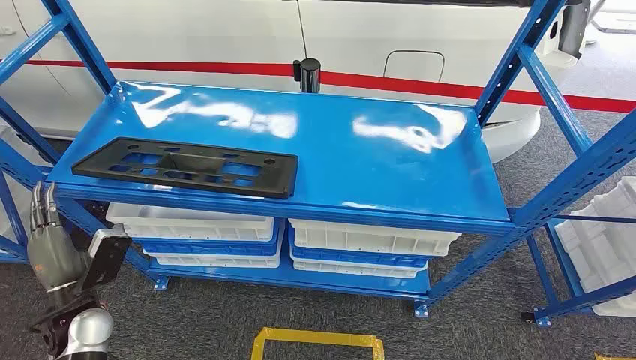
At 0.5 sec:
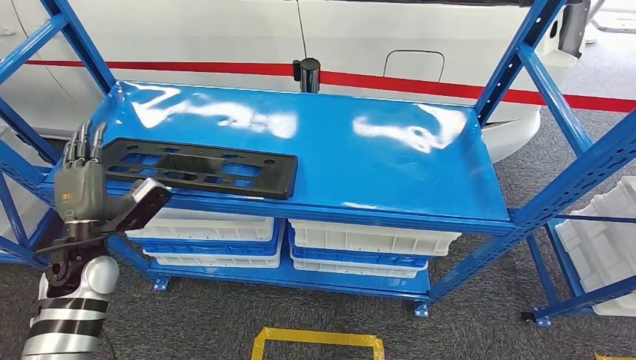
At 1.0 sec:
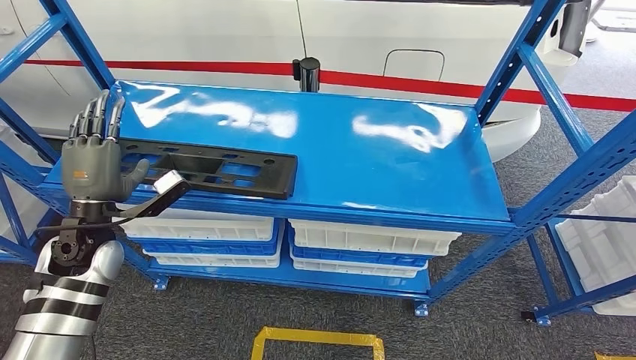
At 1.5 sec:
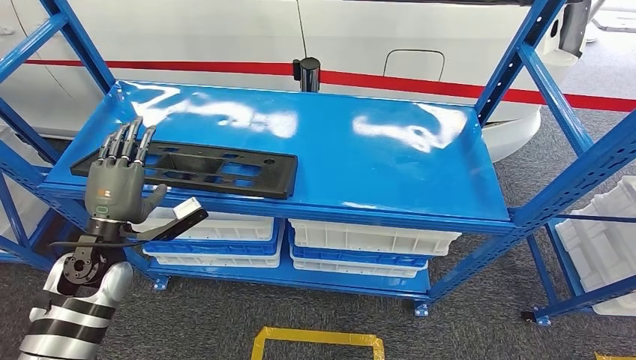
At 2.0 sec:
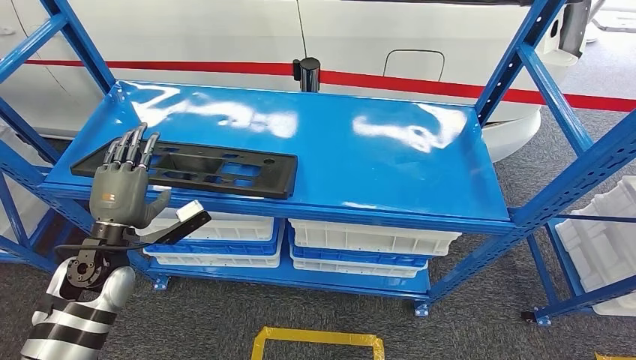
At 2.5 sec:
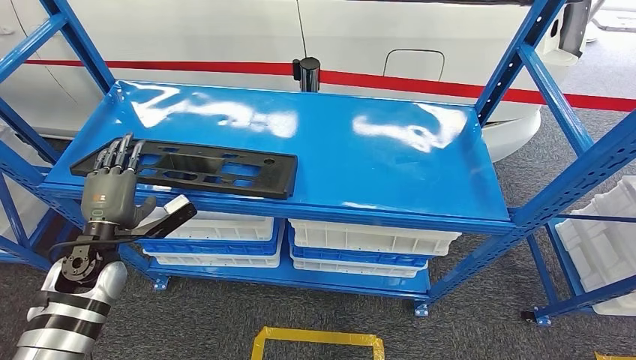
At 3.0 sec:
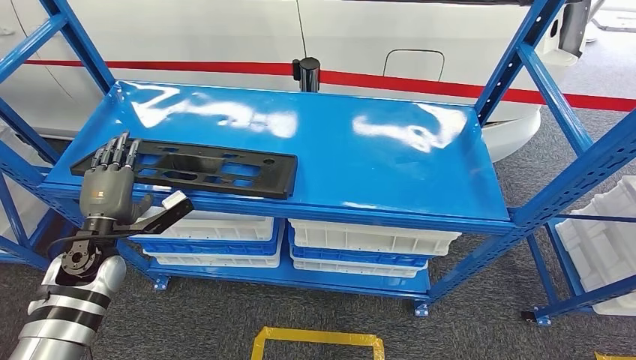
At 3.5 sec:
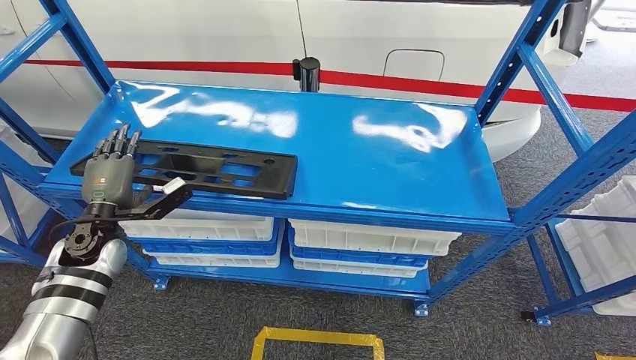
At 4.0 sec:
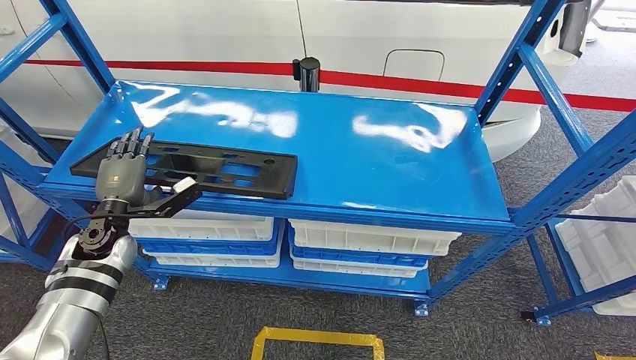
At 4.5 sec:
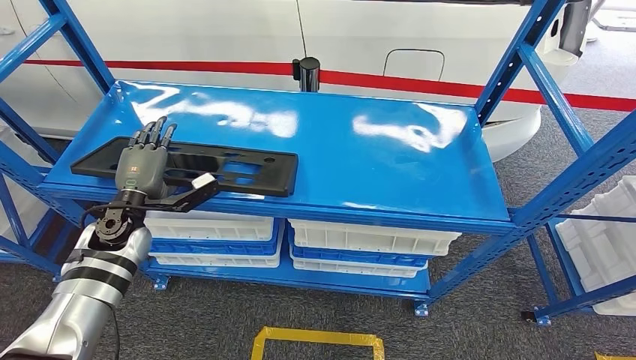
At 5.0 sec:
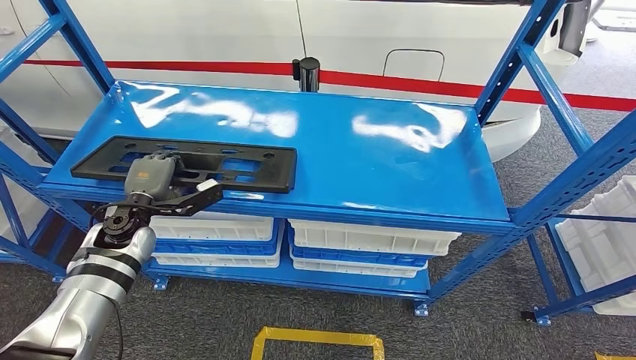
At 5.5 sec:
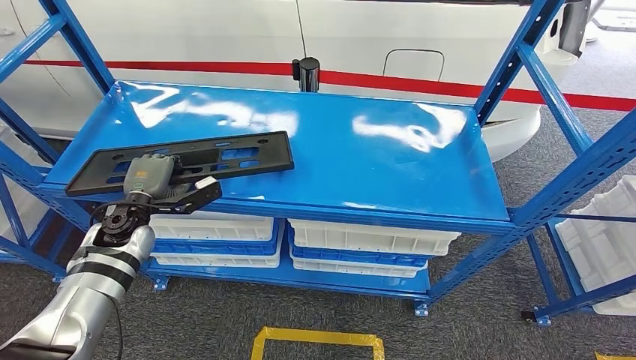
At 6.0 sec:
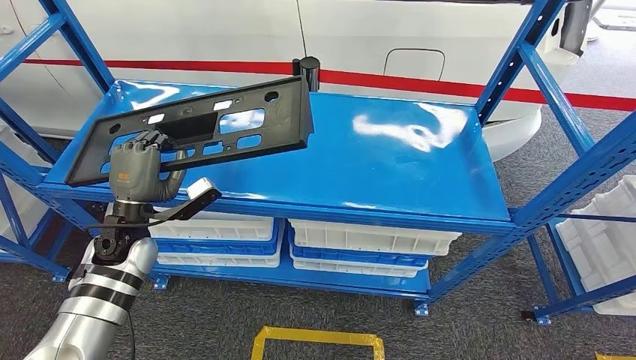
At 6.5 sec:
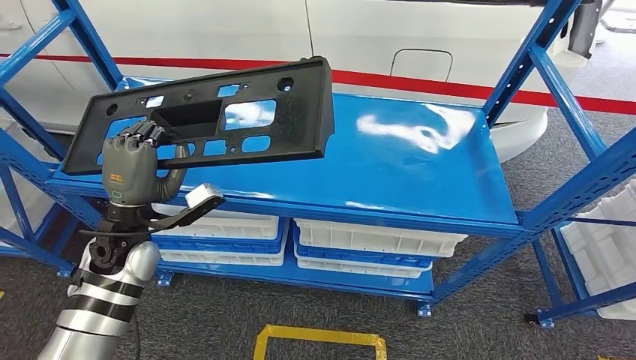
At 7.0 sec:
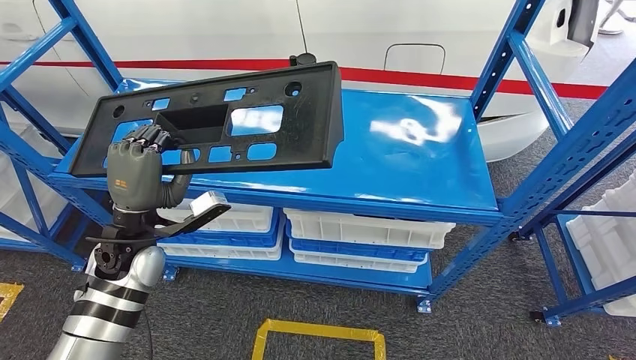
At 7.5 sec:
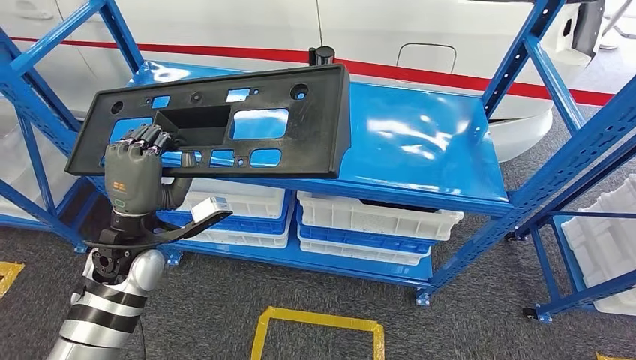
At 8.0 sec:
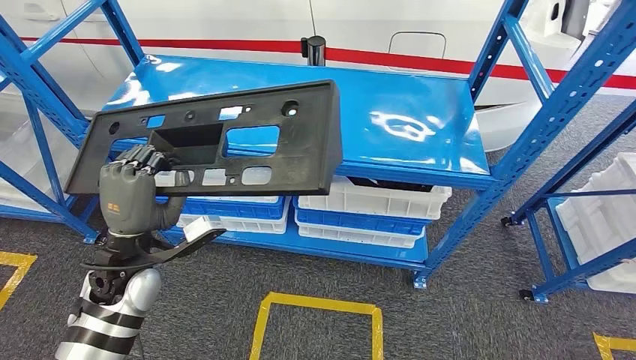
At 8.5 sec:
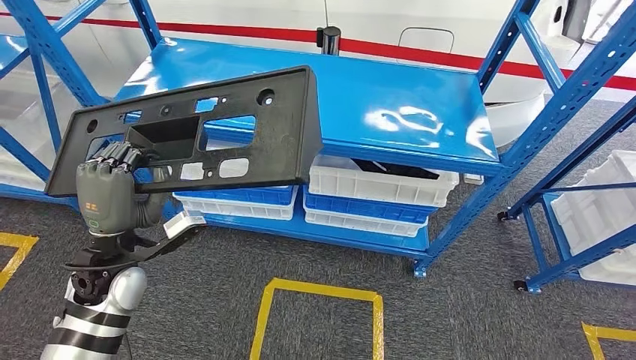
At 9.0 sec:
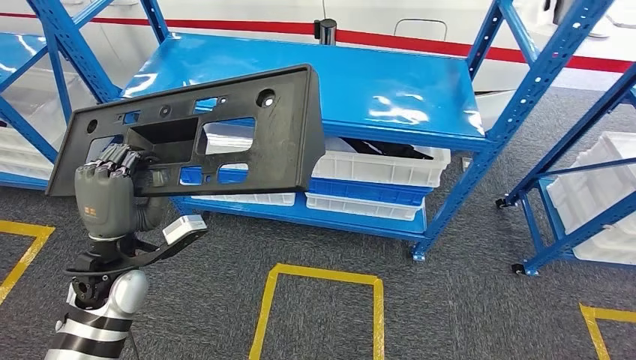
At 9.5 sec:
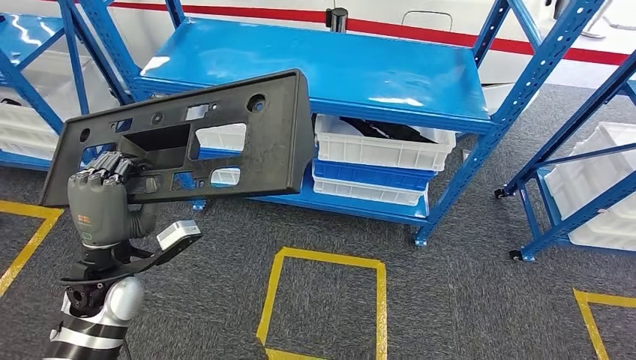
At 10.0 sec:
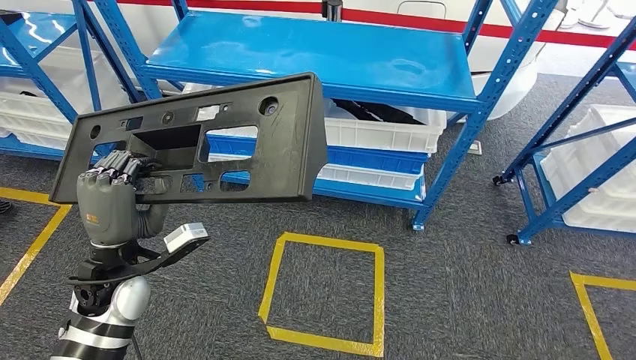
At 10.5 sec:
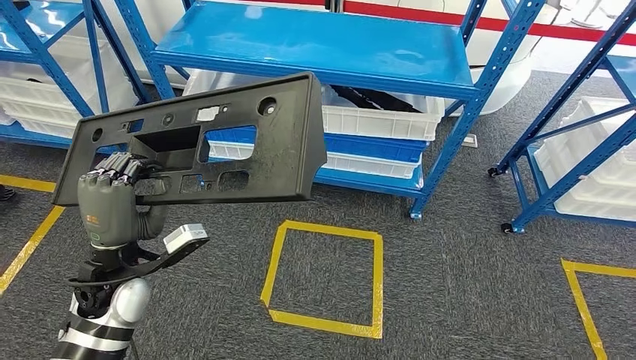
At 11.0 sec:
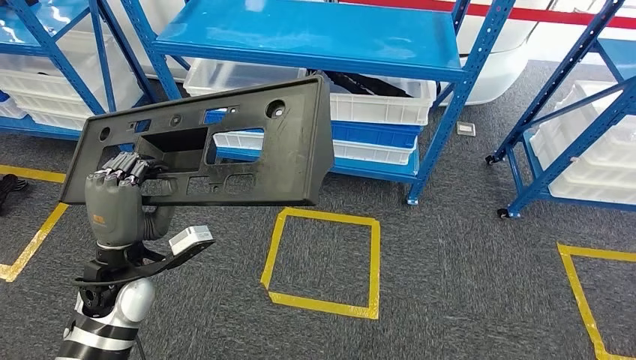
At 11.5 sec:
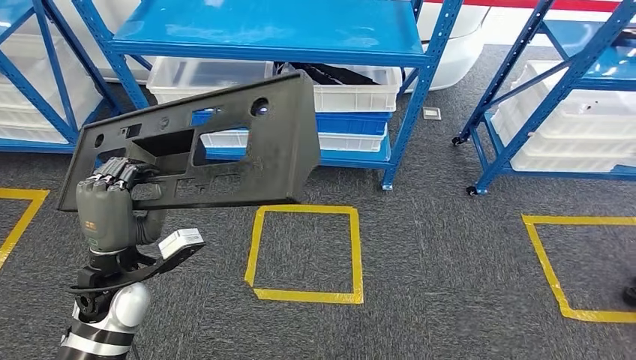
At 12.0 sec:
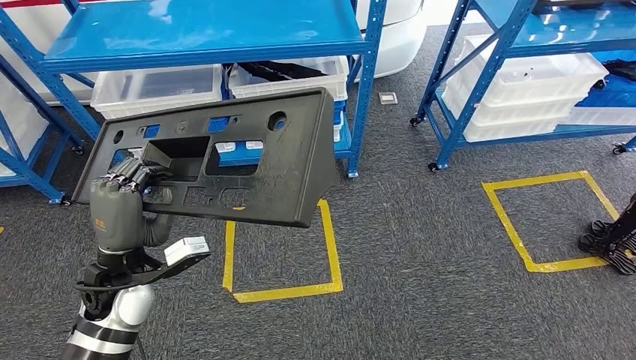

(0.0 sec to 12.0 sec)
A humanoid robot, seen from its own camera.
Step, 0.0 sec - 6.5 sec: Pick up the large material from the shelf.
2.0 sec - 4.0 sec: The left hand moves forward, some 5 cm.
4.0 sec - 6.0 sec: The left hand is displaced to the right by some 5 cm.

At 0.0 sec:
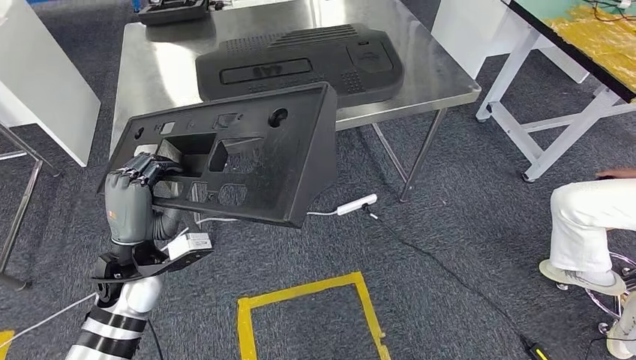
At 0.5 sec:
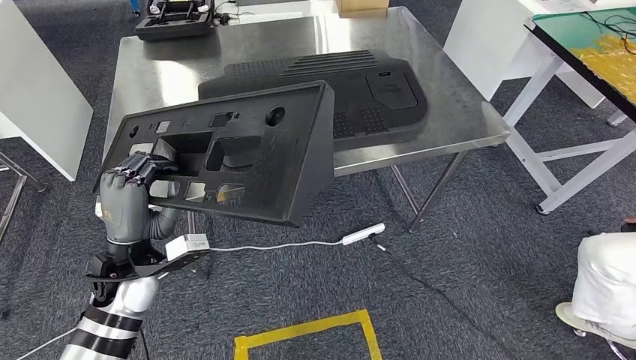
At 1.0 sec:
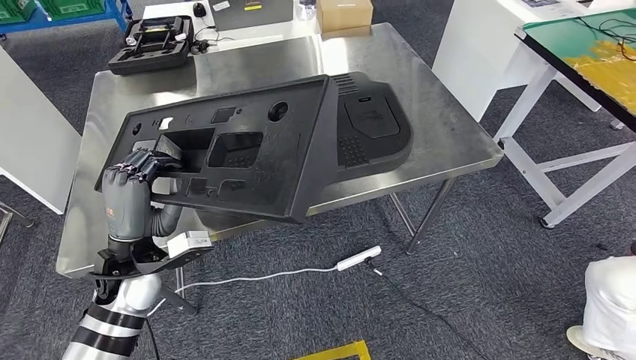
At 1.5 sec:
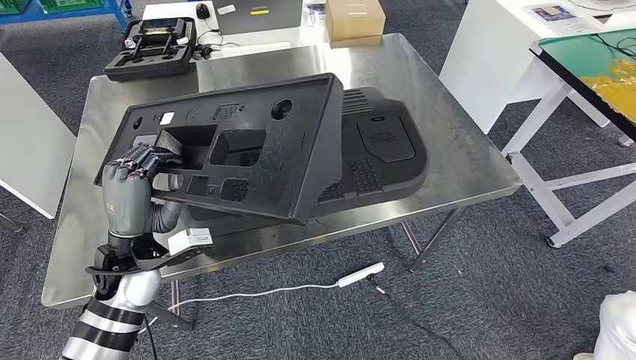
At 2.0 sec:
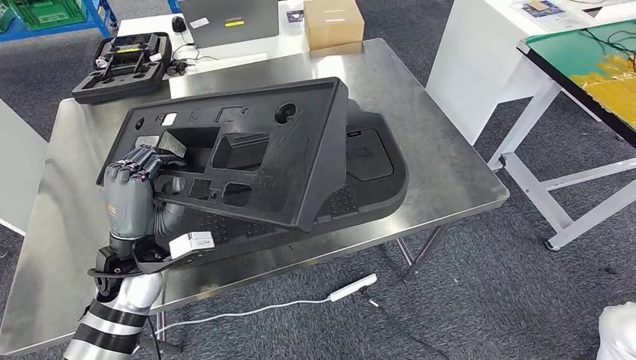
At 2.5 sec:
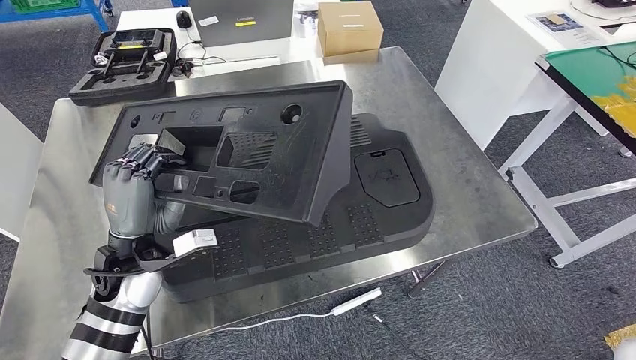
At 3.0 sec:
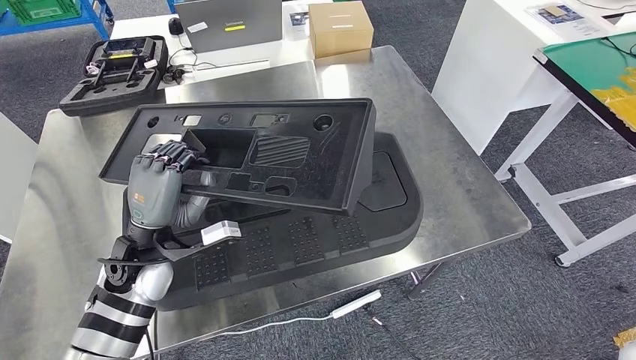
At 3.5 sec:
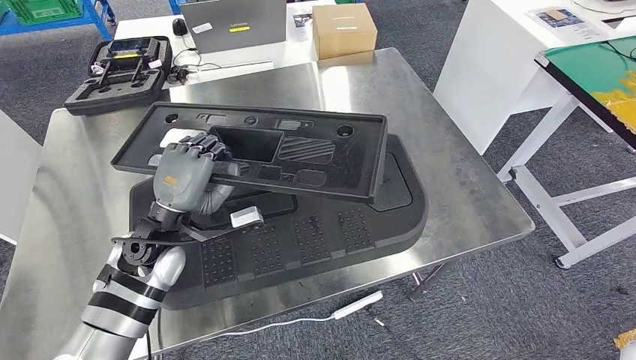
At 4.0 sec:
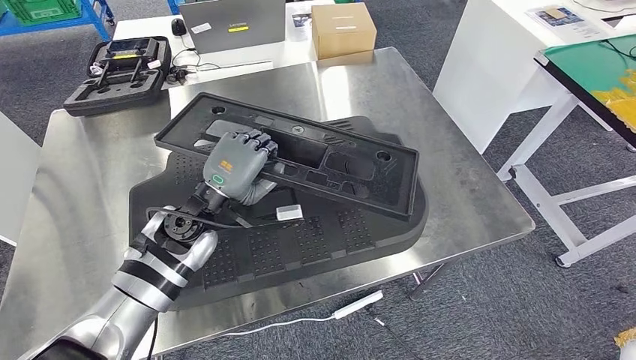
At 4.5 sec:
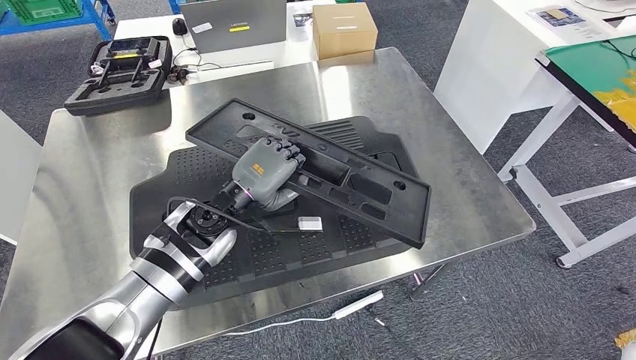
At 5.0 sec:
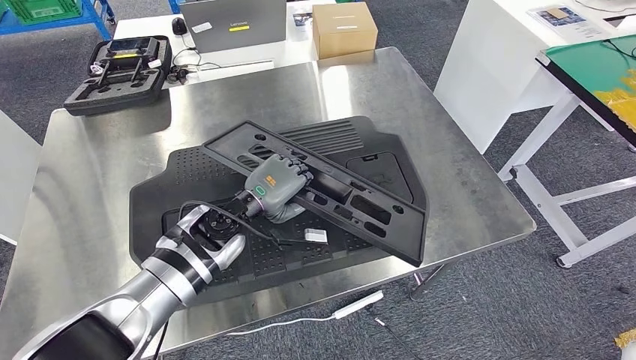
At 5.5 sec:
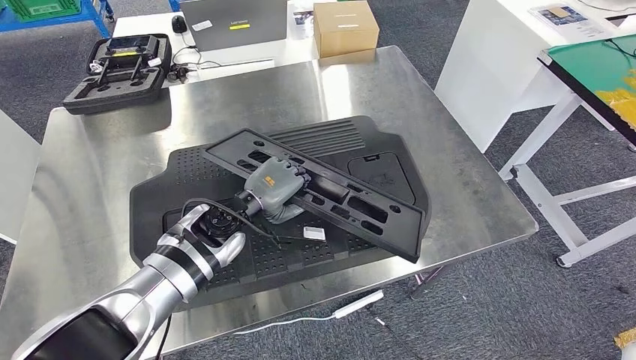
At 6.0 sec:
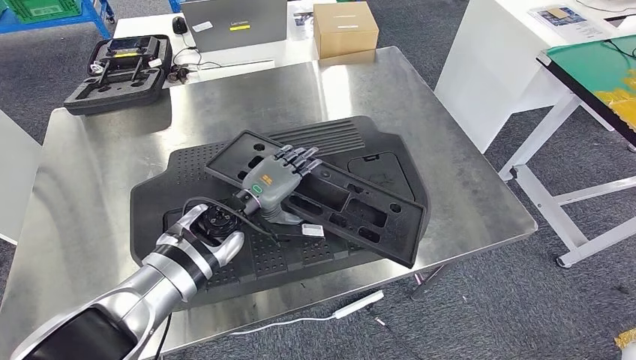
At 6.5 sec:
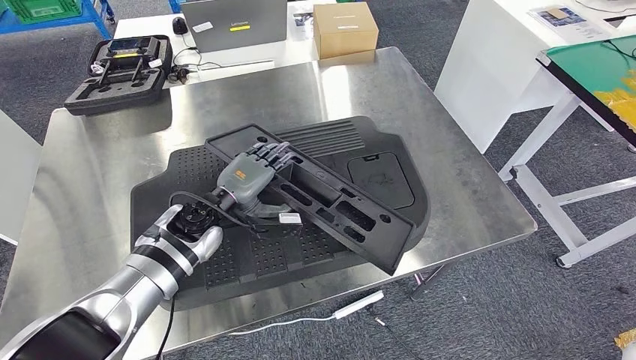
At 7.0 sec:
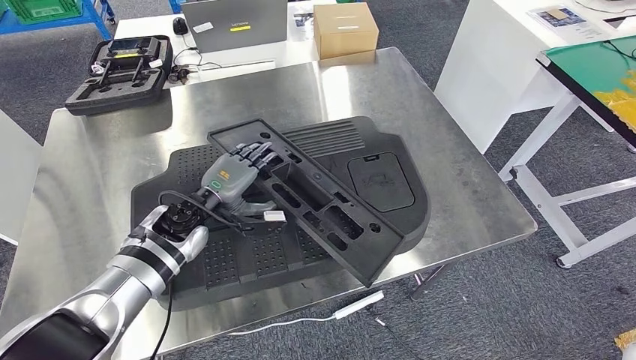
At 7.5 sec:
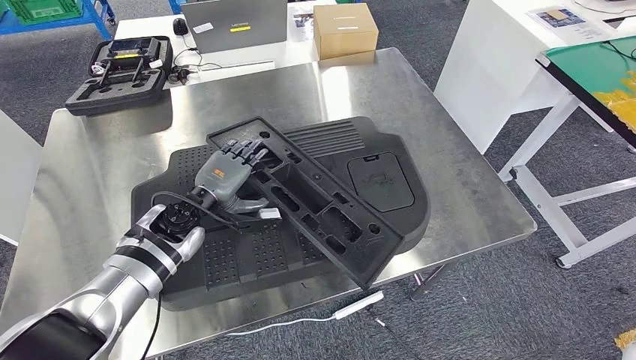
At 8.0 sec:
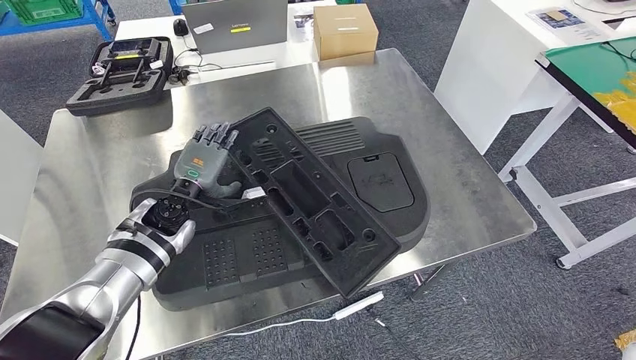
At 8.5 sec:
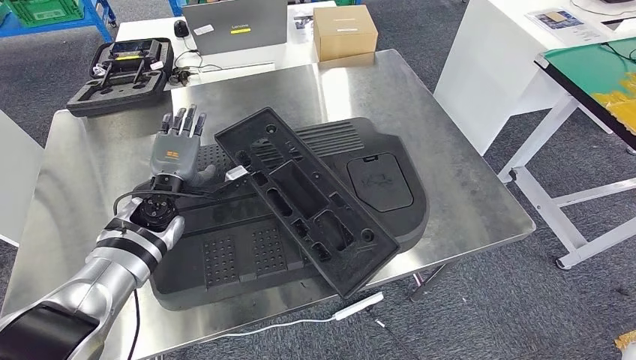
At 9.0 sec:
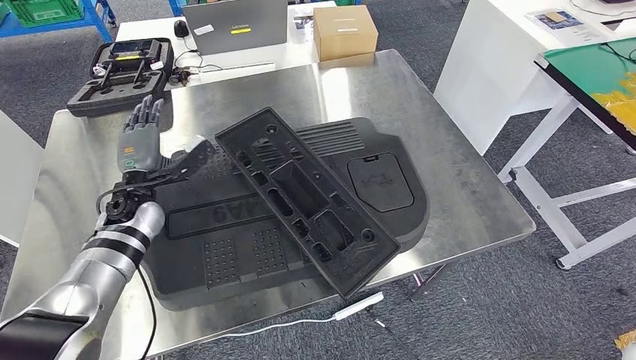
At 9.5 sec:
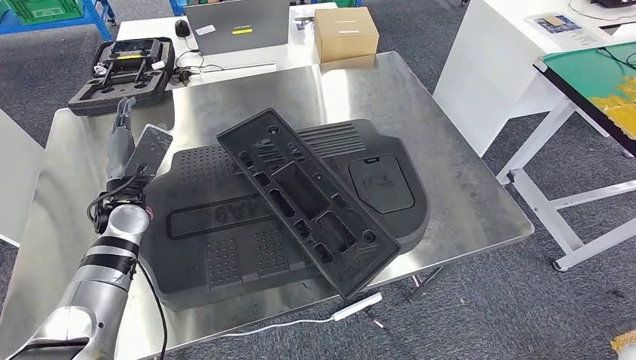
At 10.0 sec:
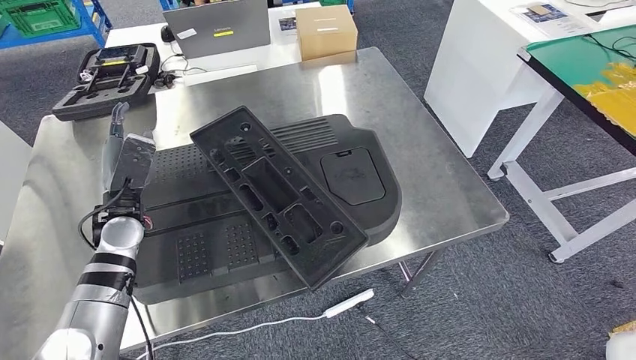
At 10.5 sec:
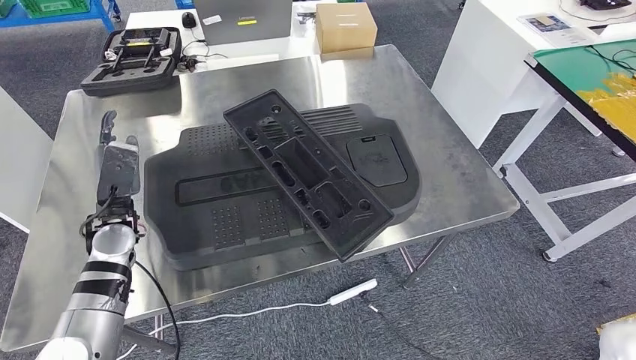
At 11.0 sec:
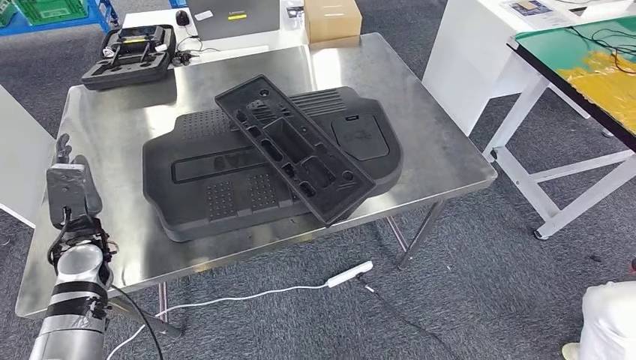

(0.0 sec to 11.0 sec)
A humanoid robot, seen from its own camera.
Step, 0.0 sec - 2.0 sec: Move the large material to the workbench.
Step, 2.5 sec - 10.0 sec: Insert the large material into the corresponding slot on the workbench.
5.5 sec - 7.5 sec: The left hand goes approximately 10 cm to the left.
7.5 sec - 9.0 sec: The left hand is displaced to the left by about 10 cm.
